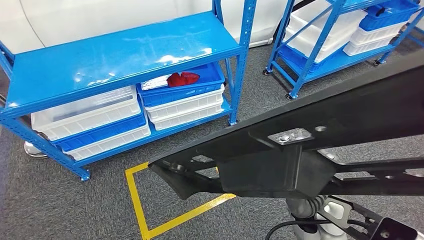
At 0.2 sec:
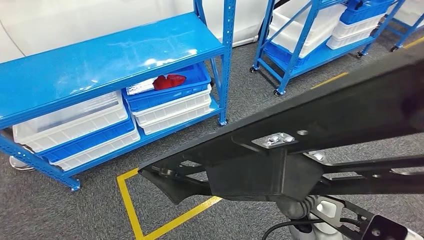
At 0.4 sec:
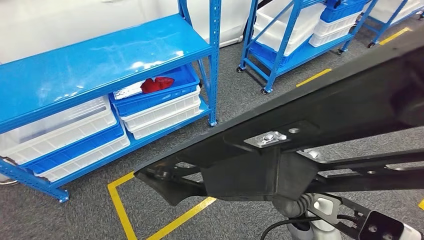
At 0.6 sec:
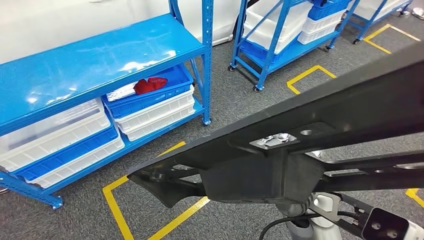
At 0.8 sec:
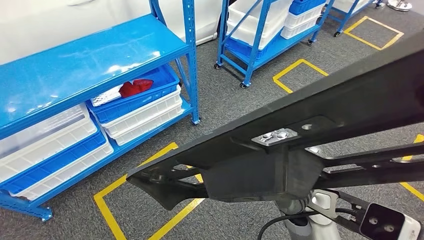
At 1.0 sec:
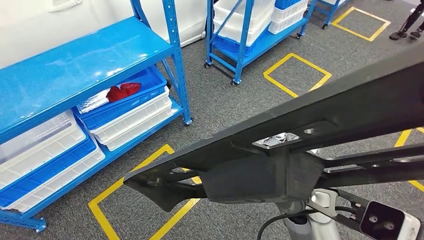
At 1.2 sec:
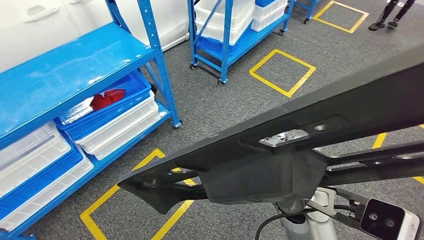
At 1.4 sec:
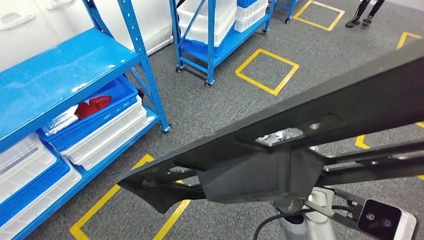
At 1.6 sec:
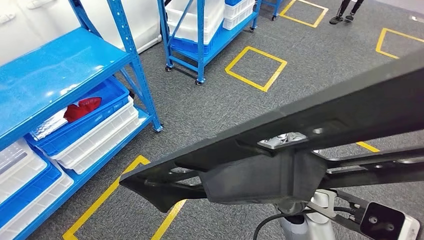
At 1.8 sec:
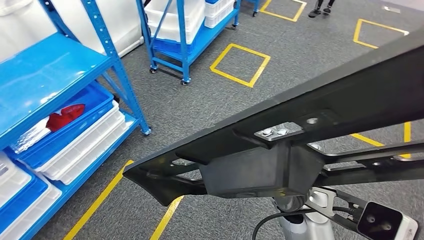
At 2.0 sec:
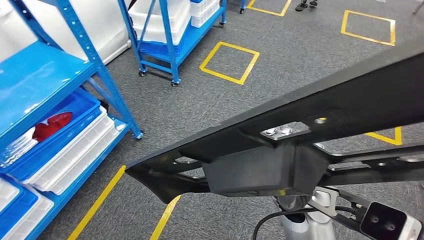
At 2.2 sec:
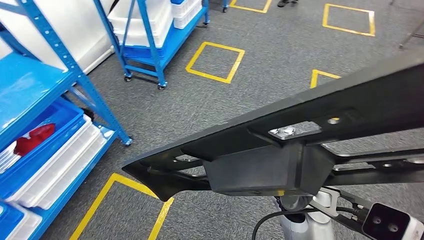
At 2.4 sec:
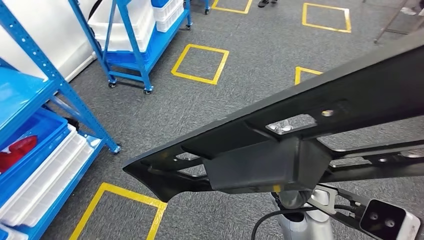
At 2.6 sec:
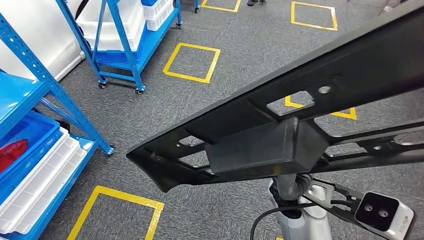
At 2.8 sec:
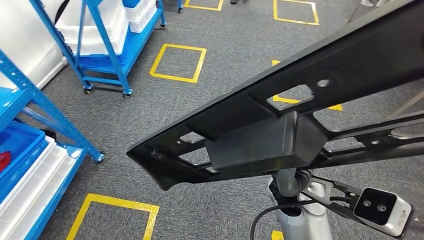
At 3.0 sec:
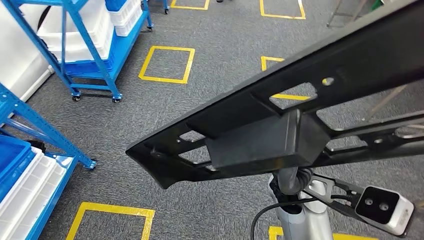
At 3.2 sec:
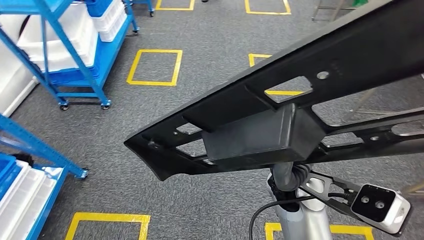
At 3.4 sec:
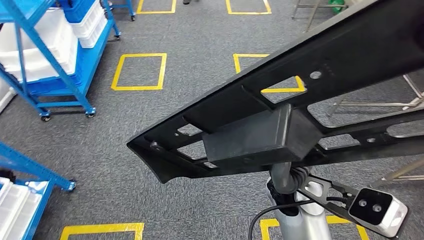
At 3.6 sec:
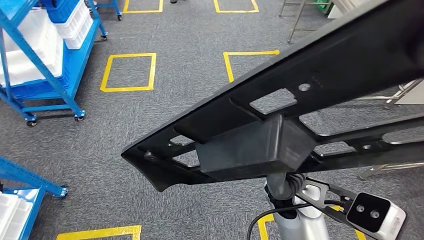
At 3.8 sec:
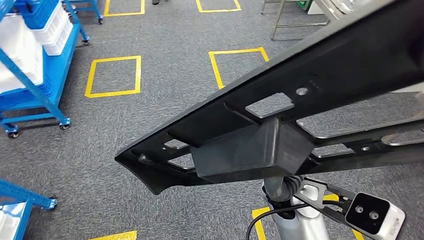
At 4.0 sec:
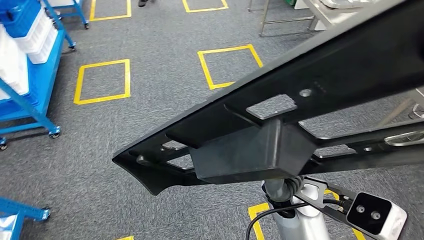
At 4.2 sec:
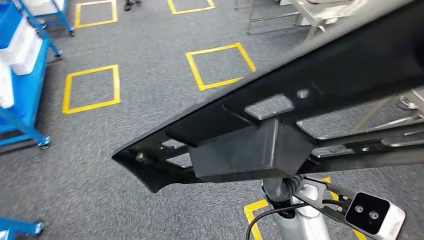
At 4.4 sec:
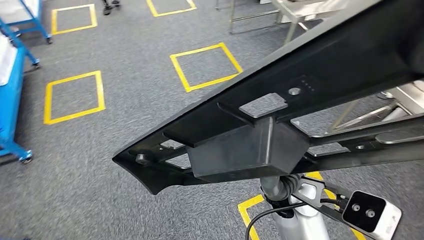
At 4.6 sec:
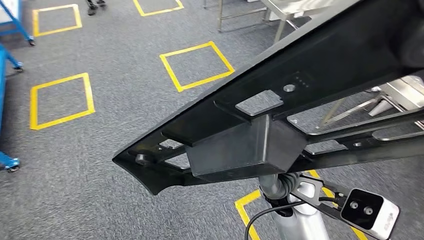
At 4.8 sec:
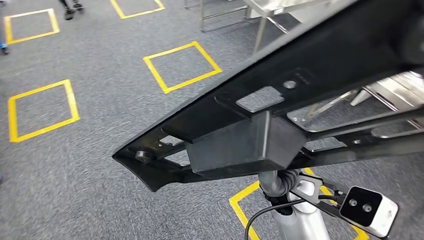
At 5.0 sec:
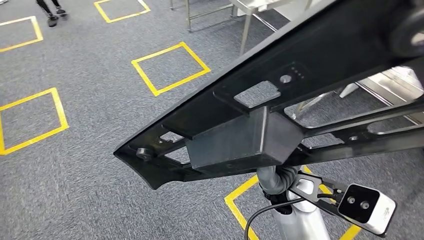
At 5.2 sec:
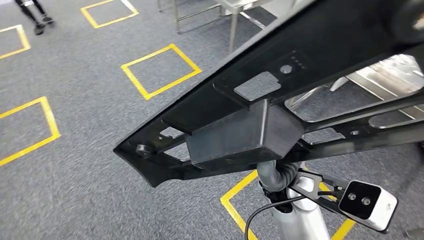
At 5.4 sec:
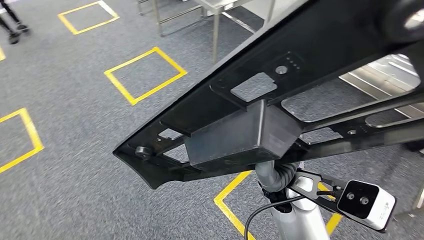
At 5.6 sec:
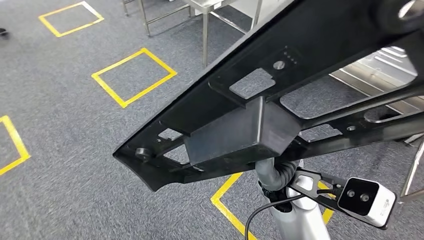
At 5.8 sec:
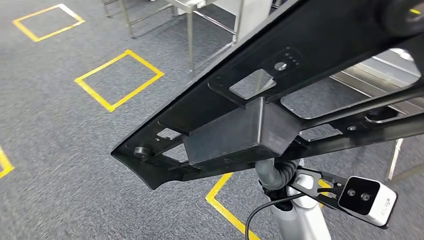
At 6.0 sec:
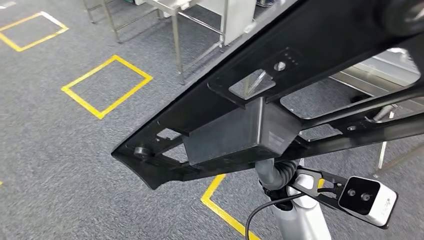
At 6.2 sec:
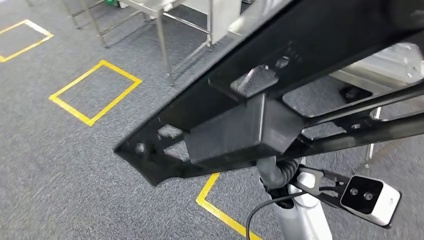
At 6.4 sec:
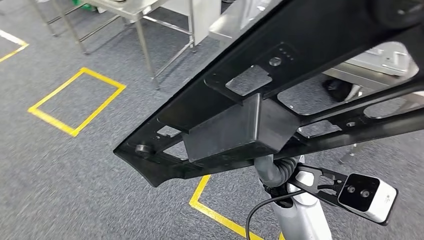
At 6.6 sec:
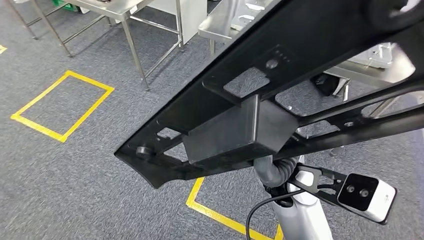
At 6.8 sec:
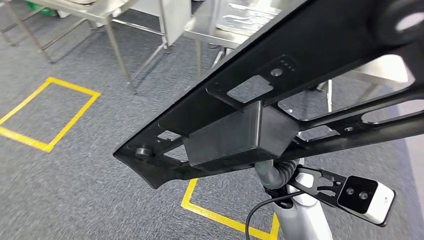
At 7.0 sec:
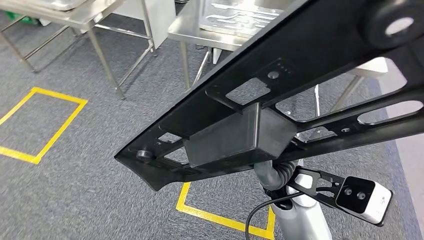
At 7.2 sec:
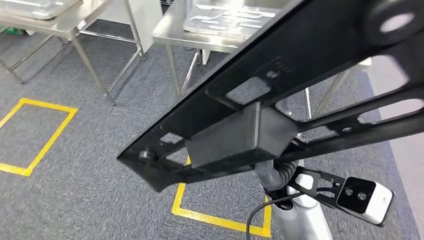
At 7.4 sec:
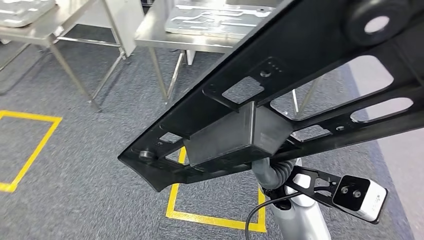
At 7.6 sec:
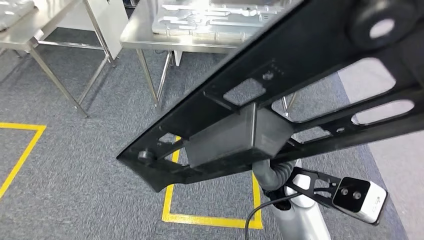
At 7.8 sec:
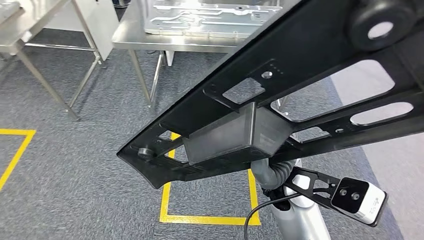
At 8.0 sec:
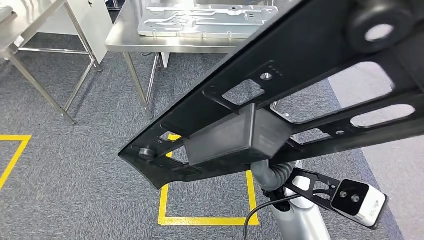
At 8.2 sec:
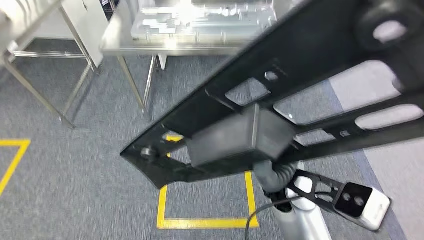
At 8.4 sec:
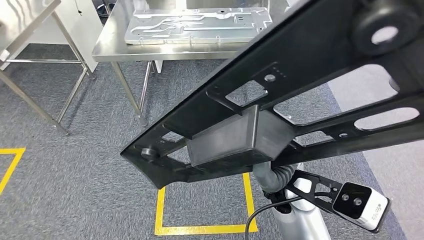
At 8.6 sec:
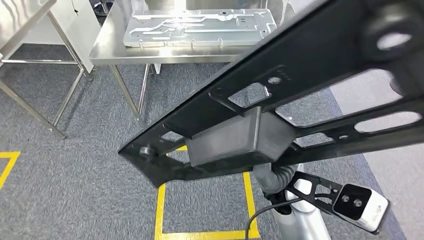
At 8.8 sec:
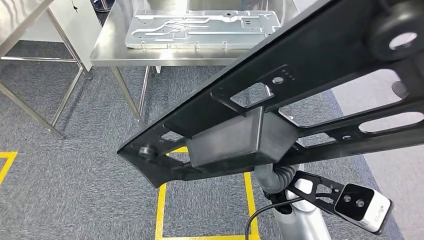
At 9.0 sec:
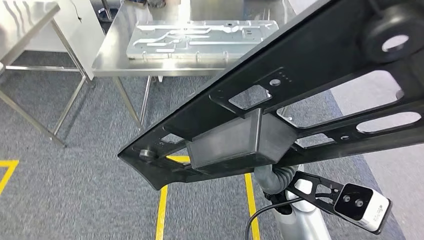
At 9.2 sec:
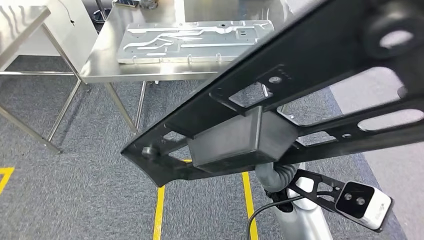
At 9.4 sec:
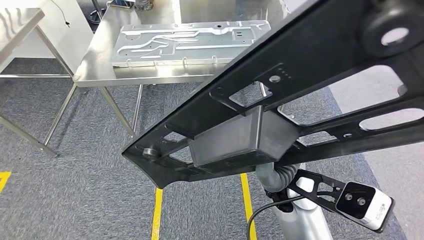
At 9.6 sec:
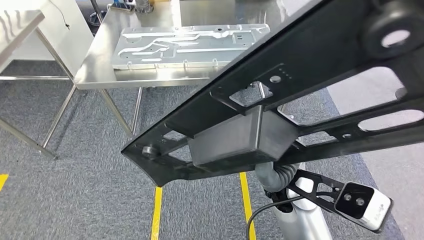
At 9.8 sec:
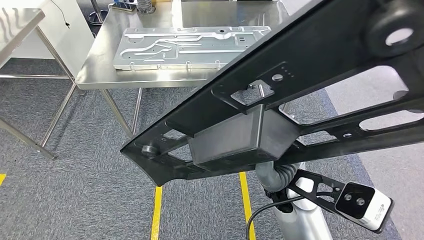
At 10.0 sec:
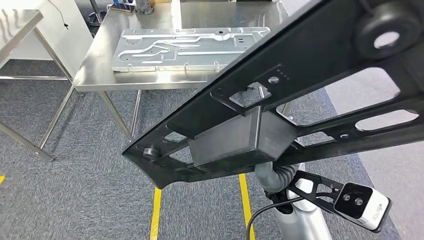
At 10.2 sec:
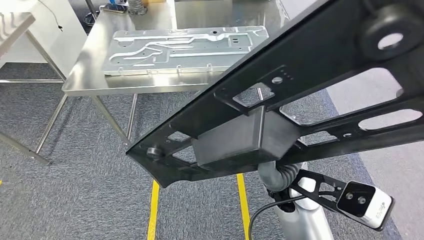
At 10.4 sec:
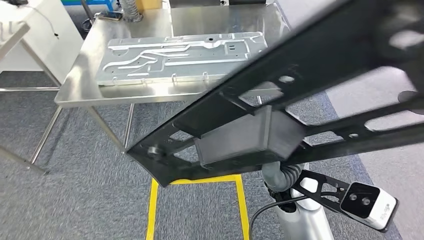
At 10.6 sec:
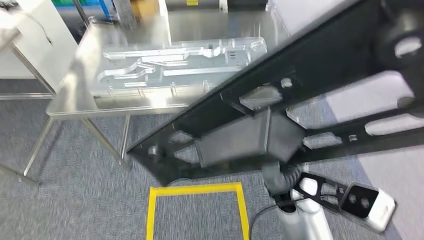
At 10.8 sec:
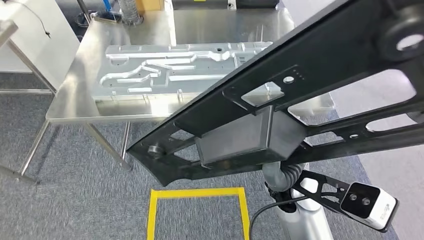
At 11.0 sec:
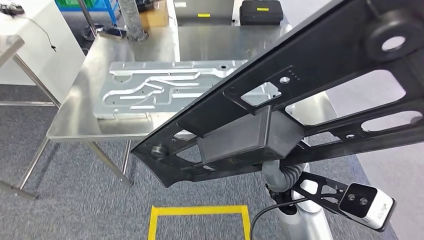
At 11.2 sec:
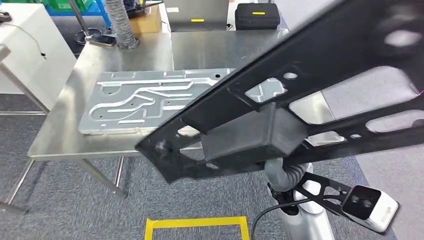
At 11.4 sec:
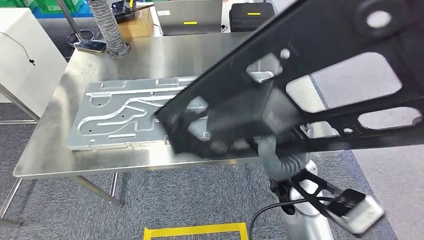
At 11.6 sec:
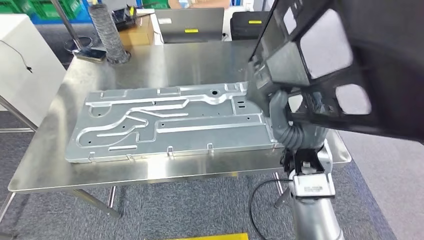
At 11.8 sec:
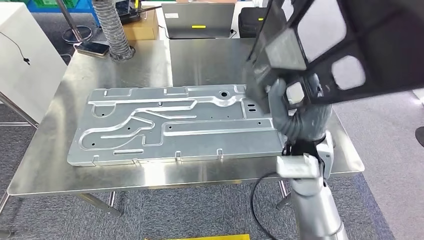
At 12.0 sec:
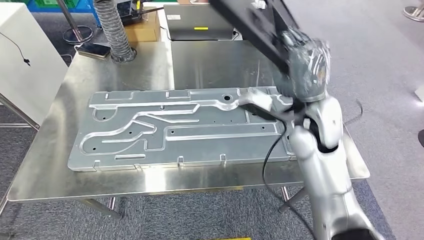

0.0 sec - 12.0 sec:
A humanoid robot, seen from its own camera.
Step, 0.0 sec - 11.8 sec: Move the large material to the workbench.

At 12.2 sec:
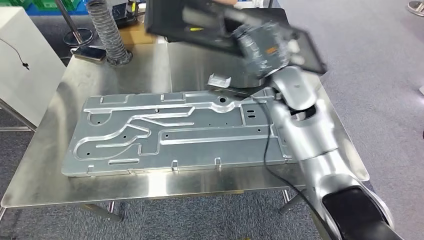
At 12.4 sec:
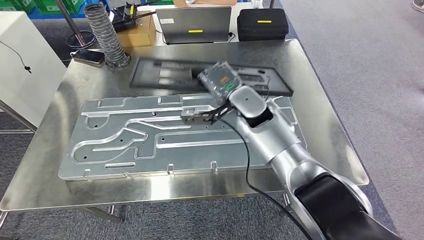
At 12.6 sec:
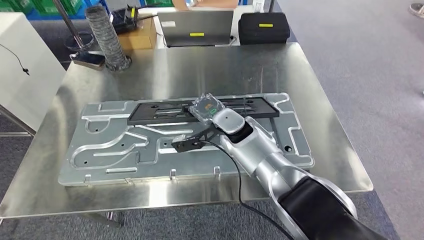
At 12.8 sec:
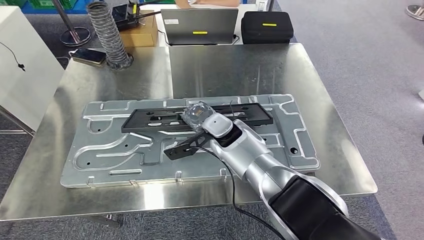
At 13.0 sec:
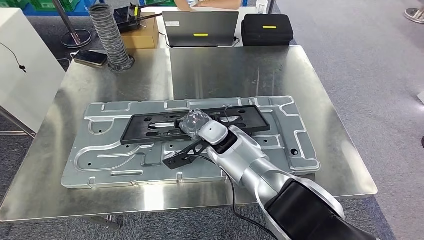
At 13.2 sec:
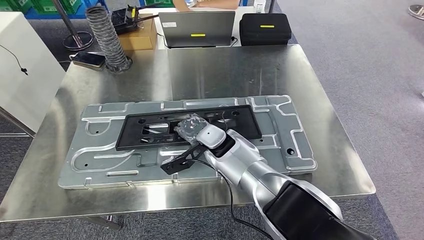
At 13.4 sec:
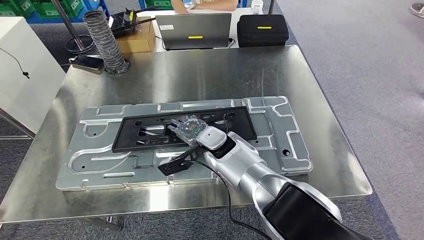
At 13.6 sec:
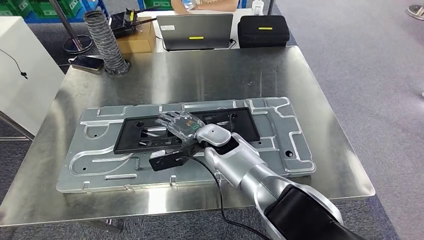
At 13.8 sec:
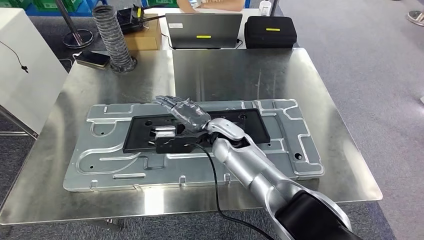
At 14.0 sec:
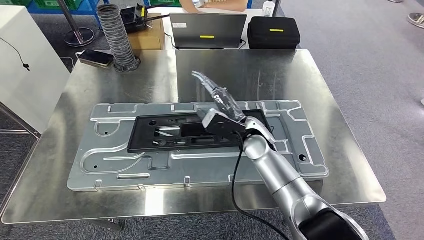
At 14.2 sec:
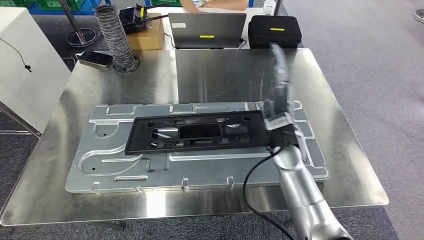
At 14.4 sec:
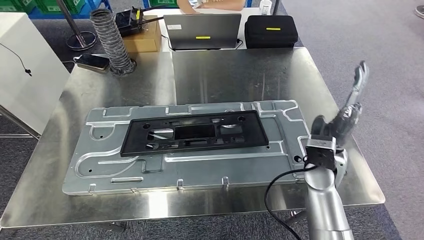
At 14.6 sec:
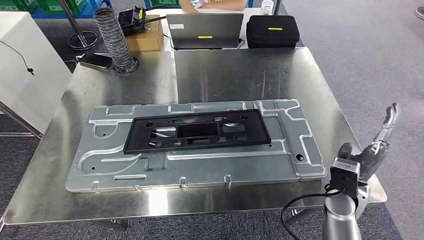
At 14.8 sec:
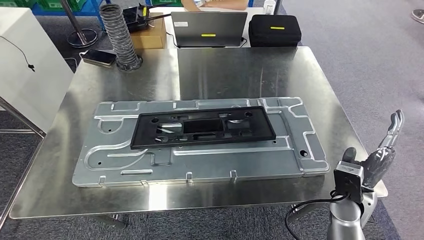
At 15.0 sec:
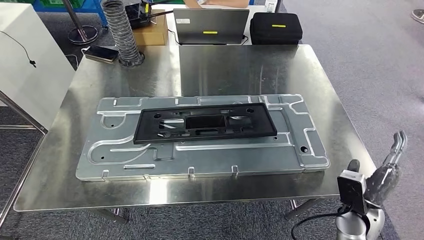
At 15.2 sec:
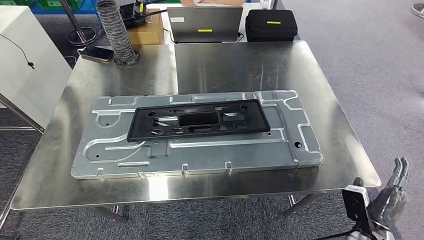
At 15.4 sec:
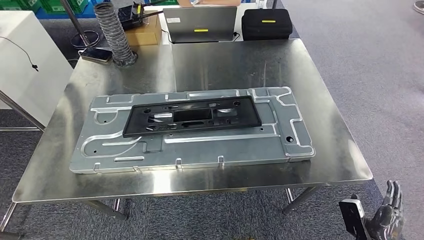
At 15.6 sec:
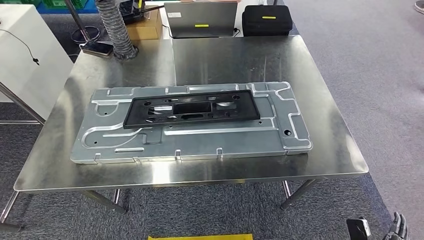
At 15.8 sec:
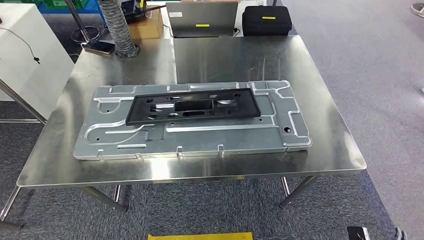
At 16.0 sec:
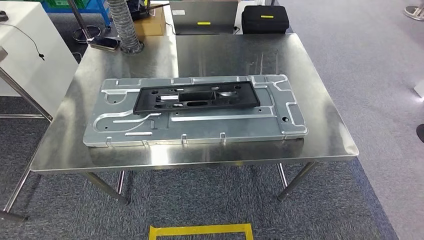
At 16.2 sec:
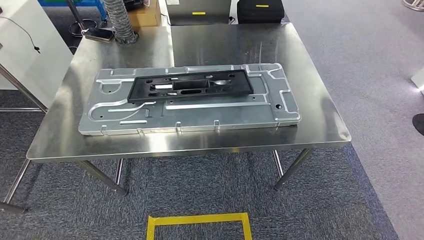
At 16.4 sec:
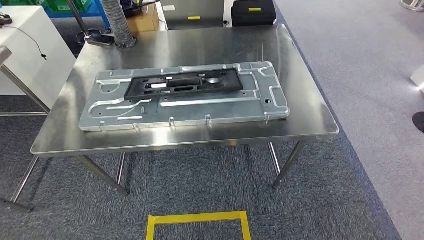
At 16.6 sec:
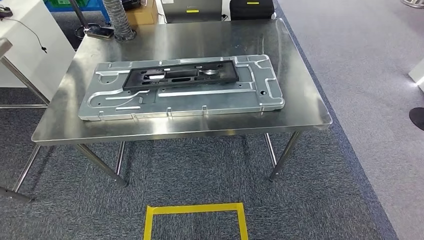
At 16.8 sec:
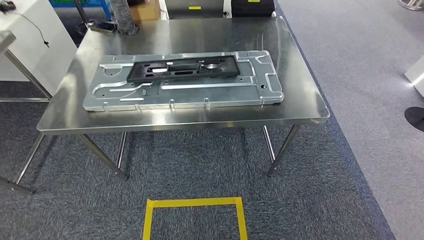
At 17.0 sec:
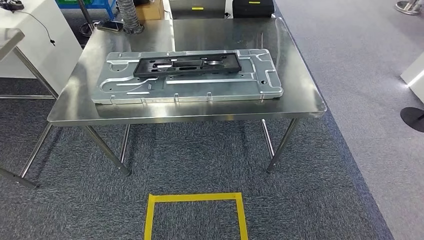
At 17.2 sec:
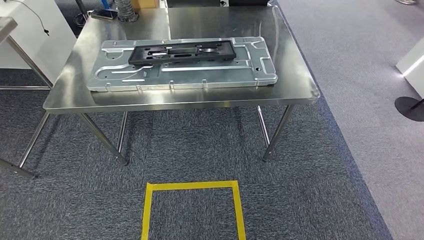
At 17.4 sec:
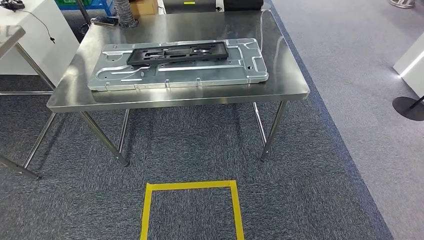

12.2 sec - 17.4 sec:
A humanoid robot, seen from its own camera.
Step, 12.2 sec - 14.6 sec: Insert the large material into the corresponding slot on the workbench.
